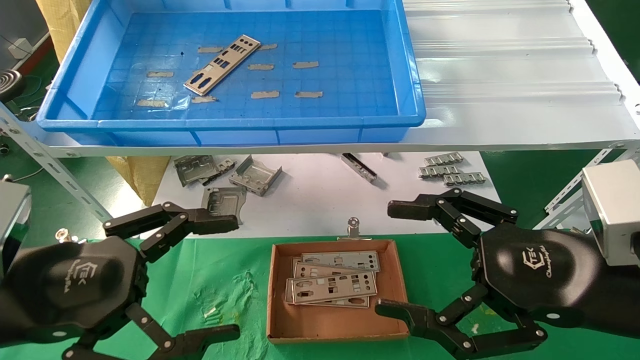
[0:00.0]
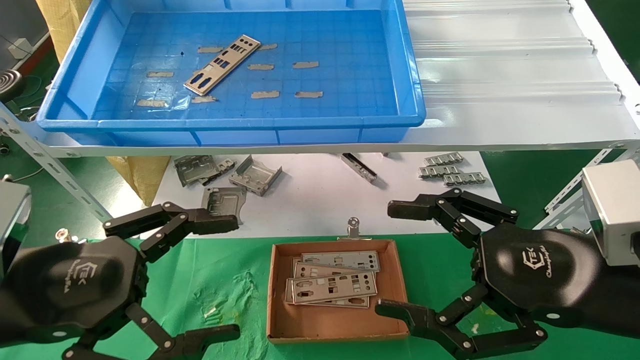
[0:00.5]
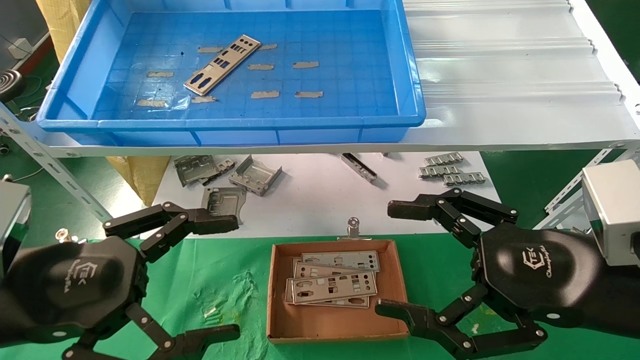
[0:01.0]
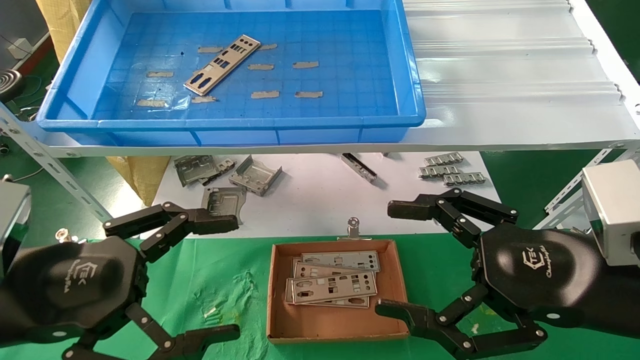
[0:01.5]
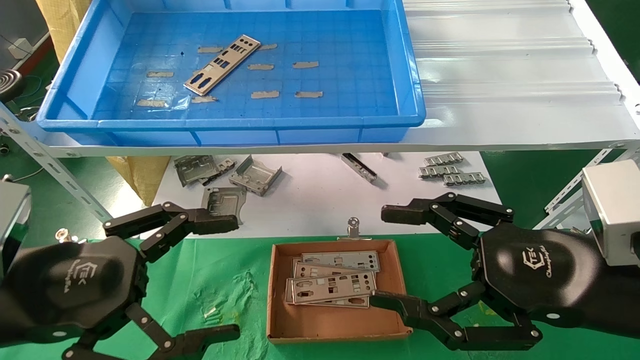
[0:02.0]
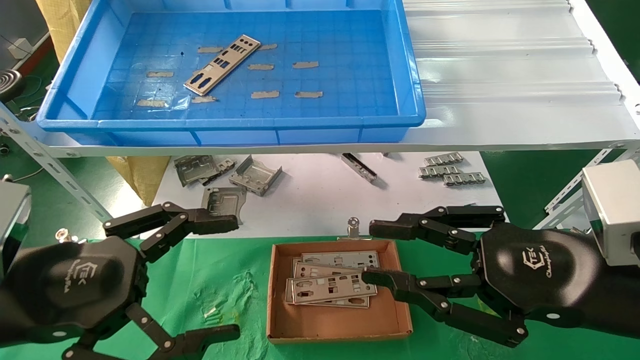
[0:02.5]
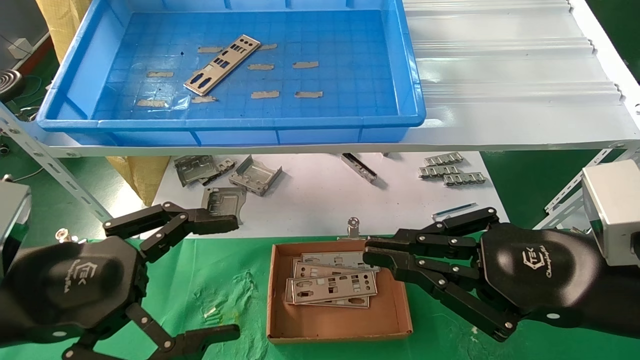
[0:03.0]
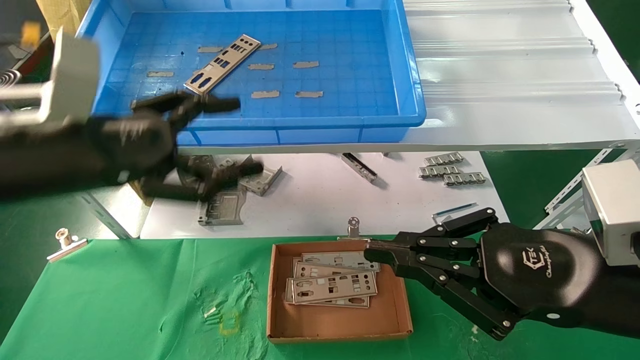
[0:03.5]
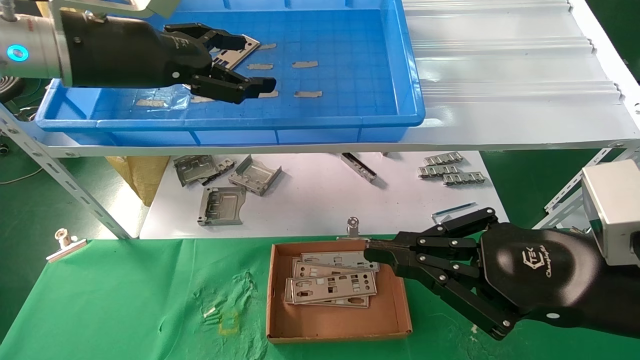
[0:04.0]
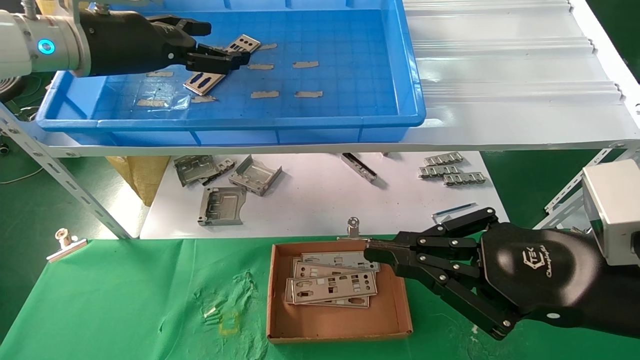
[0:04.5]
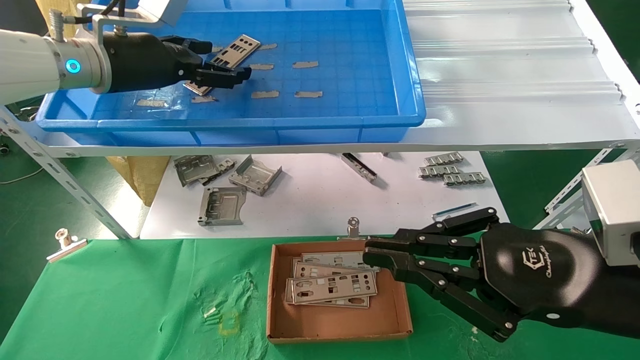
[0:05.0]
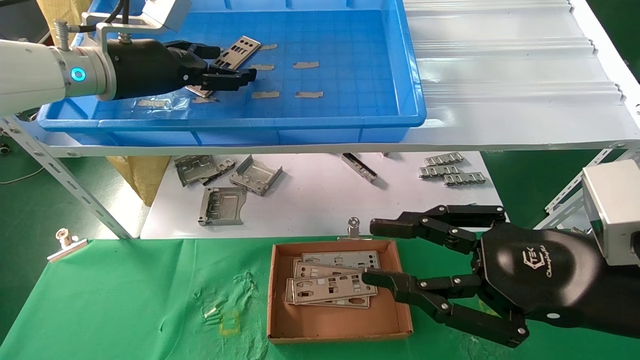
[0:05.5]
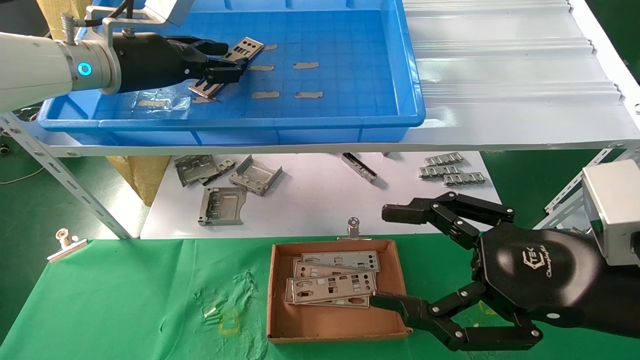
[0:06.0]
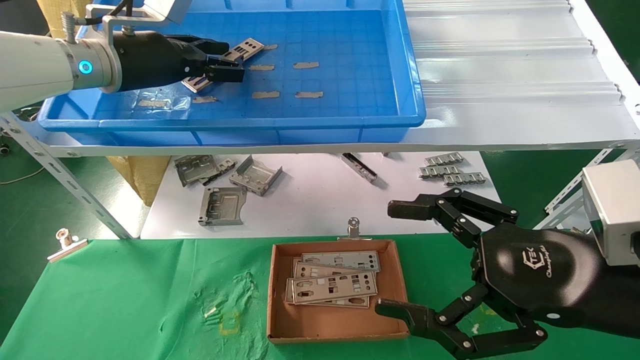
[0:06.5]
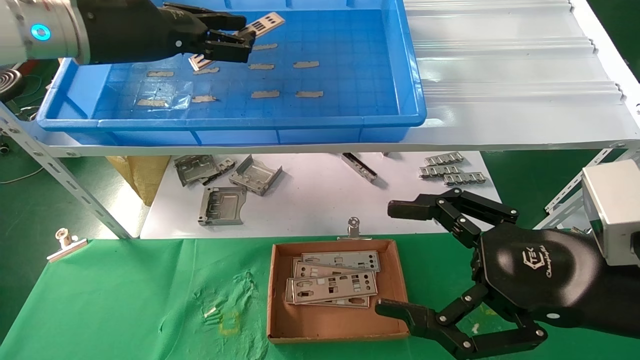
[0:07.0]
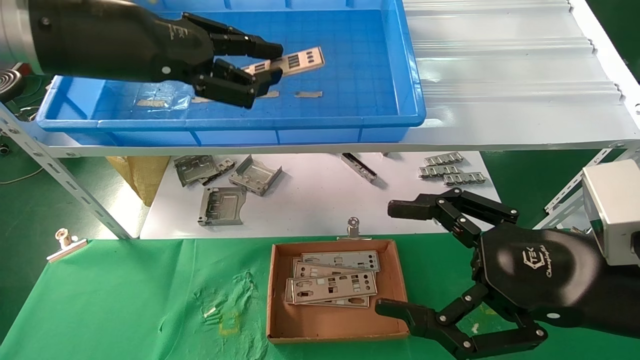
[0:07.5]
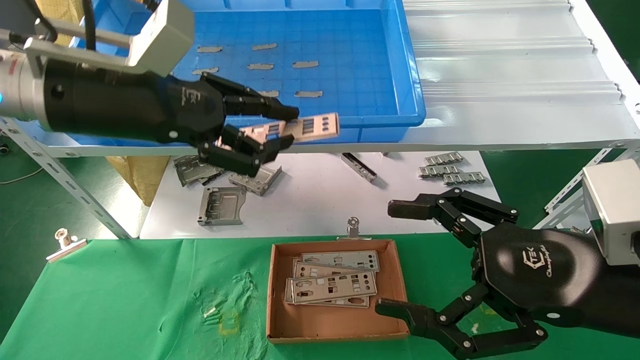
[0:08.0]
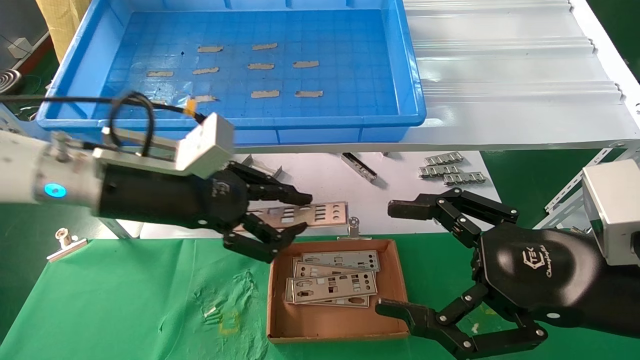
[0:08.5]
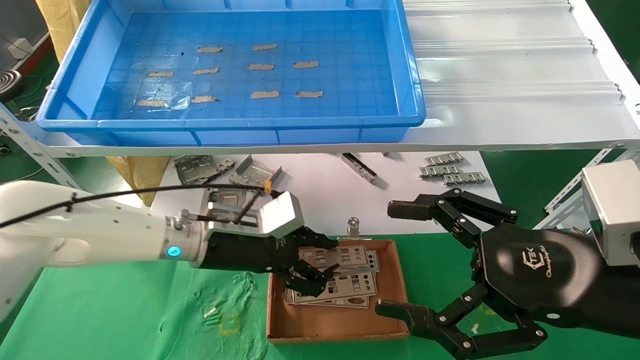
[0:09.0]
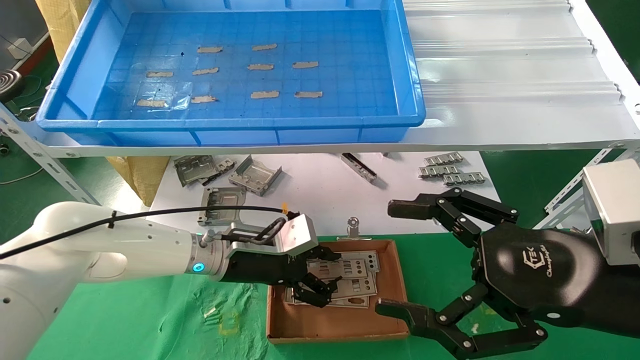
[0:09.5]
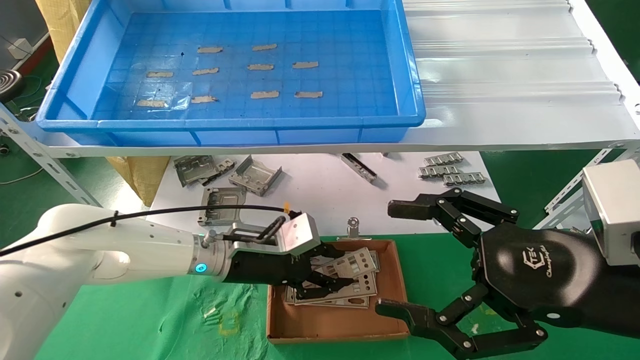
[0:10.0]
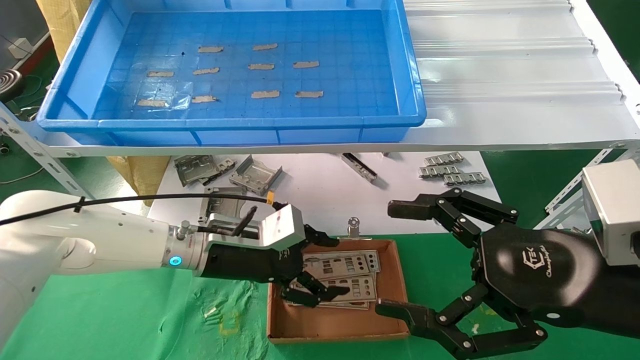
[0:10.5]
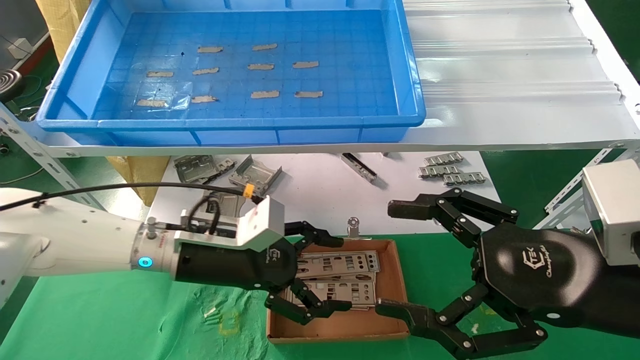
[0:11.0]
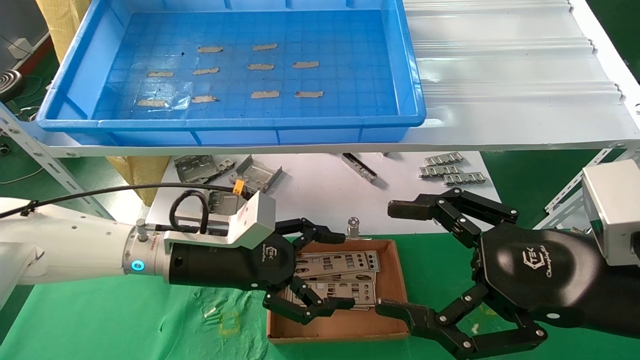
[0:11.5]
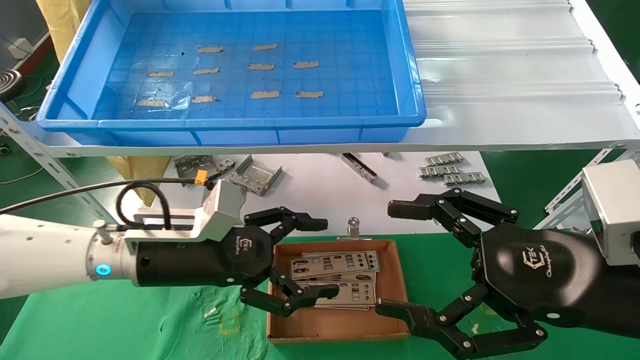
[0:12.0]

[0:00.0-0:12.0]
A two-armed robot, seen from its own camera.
Task of the whole recording: pick up the parts on the tray and put them in the cardboard box.
Step, 0:03.5 to 0:06.5: Pick up the IO bracket from the container box.
Step, 0:07.0 to 0:10.5: Place the IO bracket into the ingredient slot.
0:00.0 to 0:02.0: Both grippers stay put.
0:02.0 to 0:04.0: The right gripper closes up; the left gripper travels upward and forward by roughly 25 cm.
0:04.0 to 0:06.0: The left gripper moves forward, roughly 10 cm, and closes its fingers. The right gripper opens.
0:06.0 to 0:08.0: The left gripper travels backward by roughly 15 cm, and closes.
0:08.0 to 0:10.0: The left gripper moves downward, forward and to the right, some 30 cm.
0:10.0 to 0:12.0: The left gripper heads backward and to the left, covering some 10 cm, and opens its fingers.

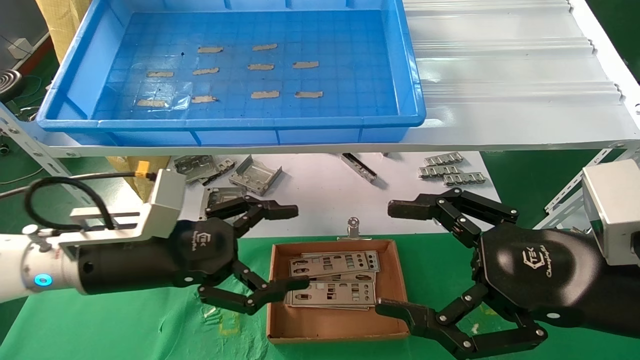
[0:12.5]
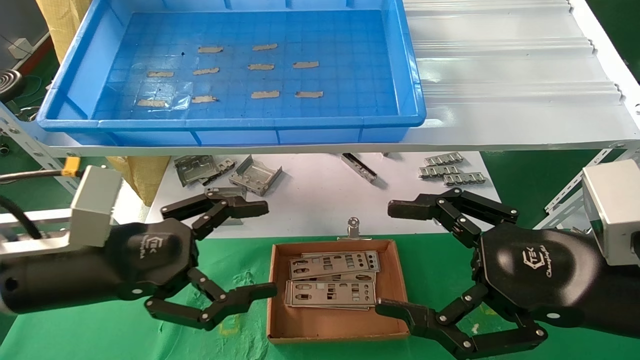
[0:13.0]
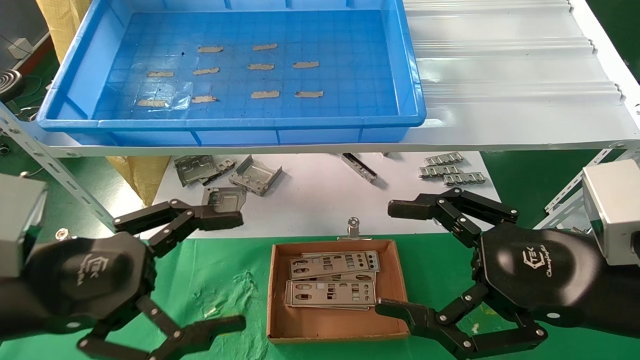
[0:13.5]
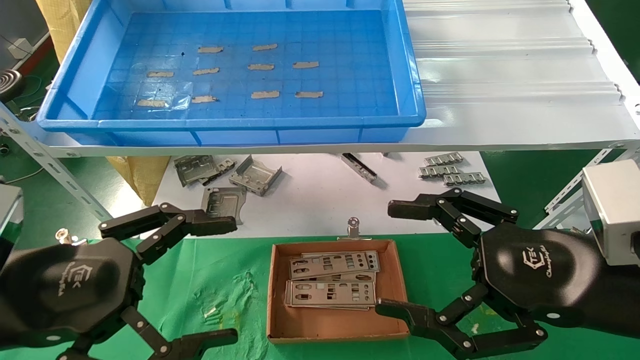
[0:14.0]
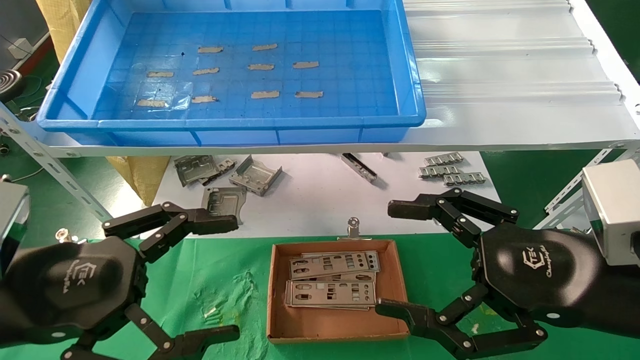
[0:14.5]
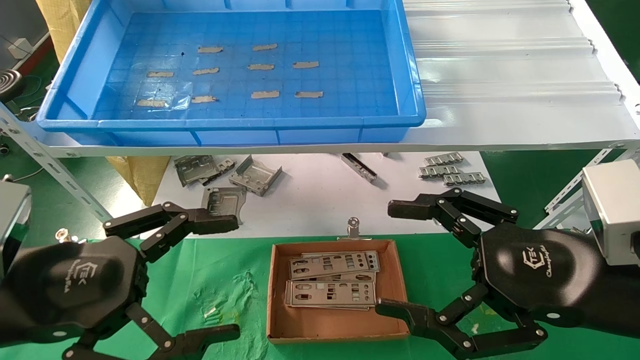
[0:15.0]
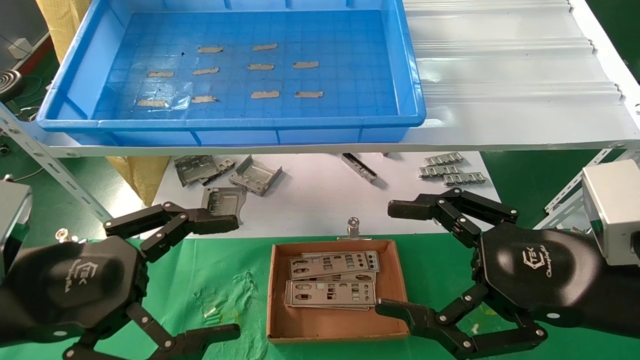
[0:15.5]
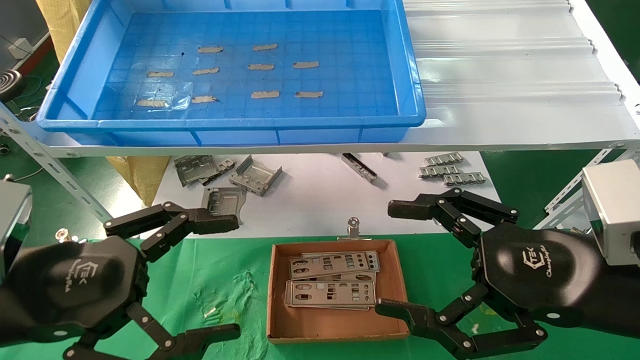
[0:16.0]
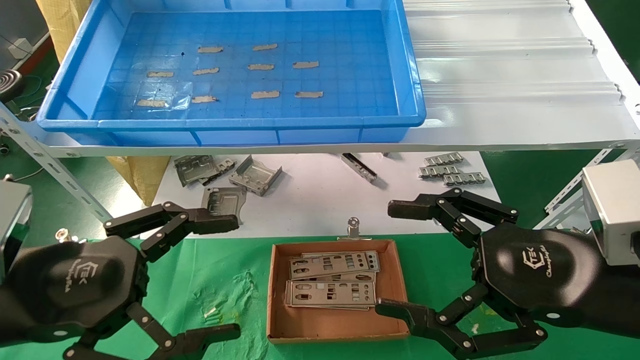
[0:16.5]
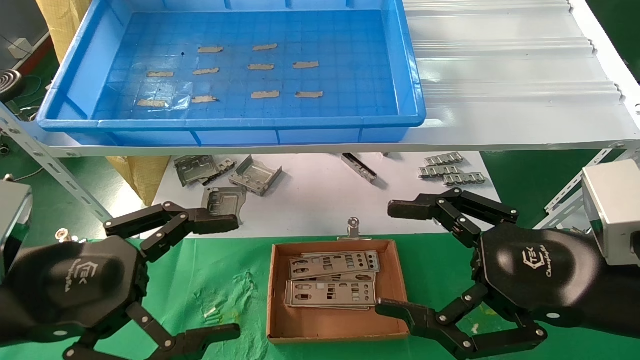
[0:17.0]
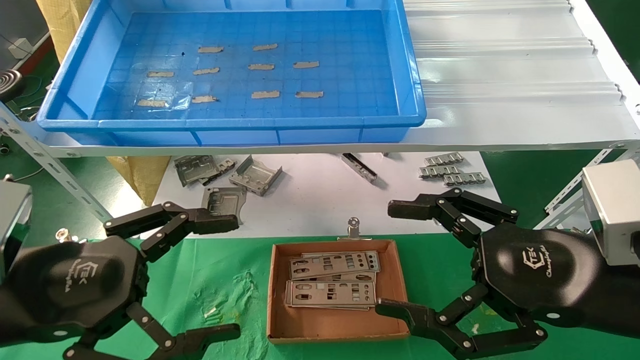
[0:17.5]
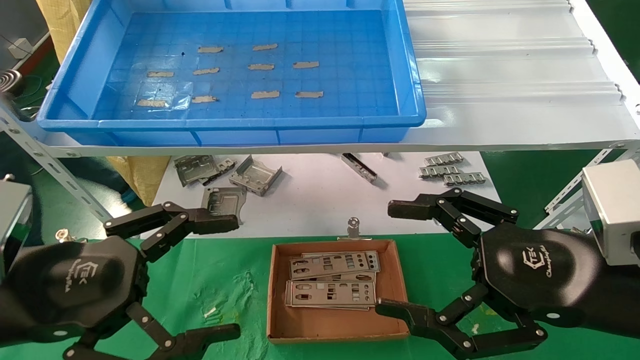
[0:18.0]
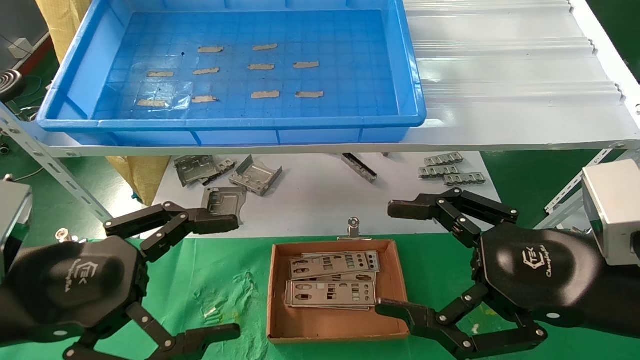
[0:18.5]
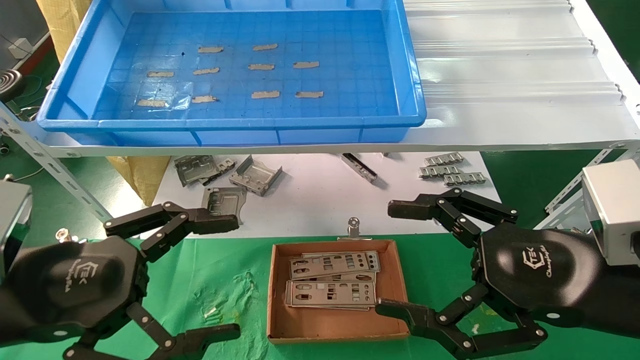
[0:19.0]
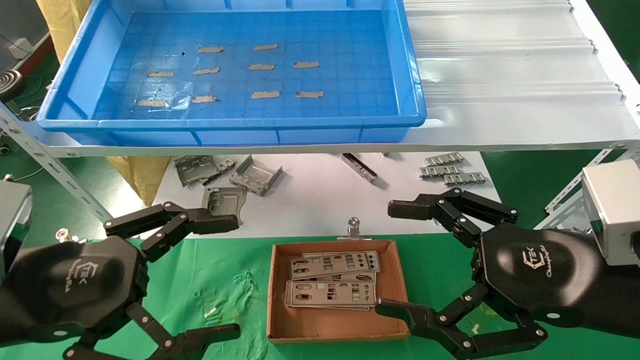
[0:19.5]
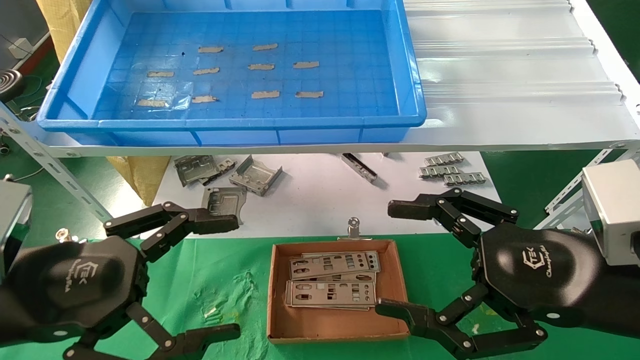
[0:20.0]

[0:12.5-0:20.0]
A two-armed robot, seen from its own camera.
Task of the whole recording: pick up the parts on the tray and put them in the cardboard box.
0:12.5 to 0:14.5: The left gripper shifts some 10 cm backward and to the left.
0:14.5 to 0:20.0: Both grippers stay put.
